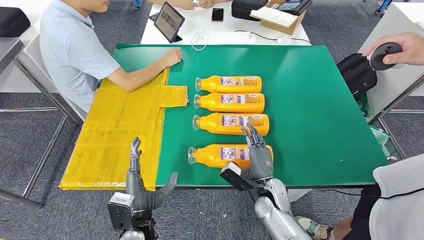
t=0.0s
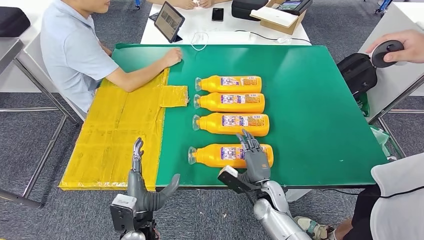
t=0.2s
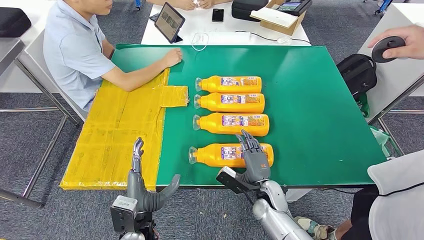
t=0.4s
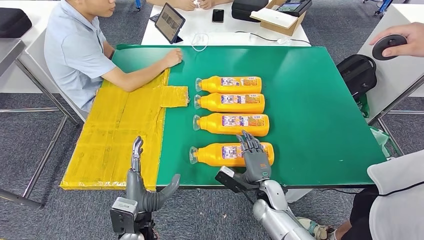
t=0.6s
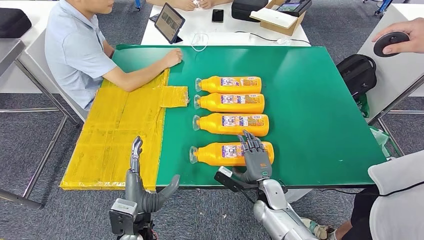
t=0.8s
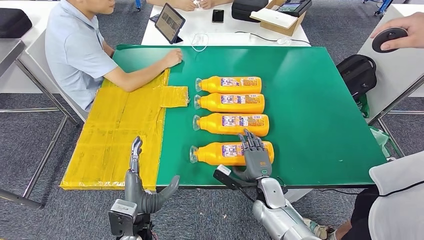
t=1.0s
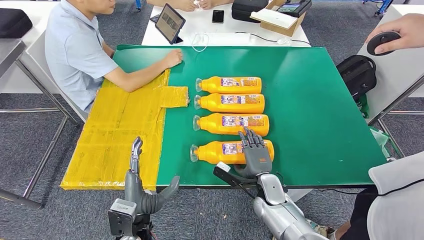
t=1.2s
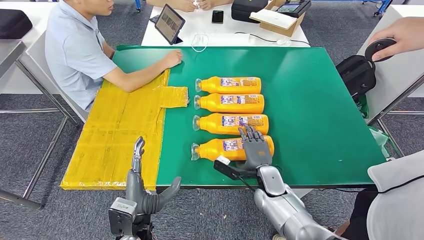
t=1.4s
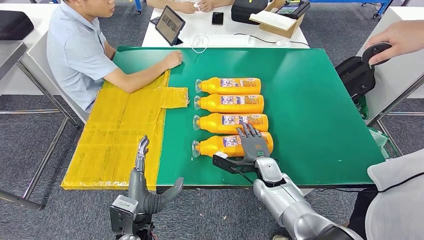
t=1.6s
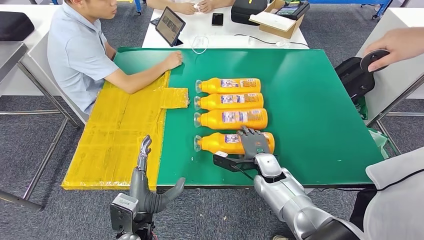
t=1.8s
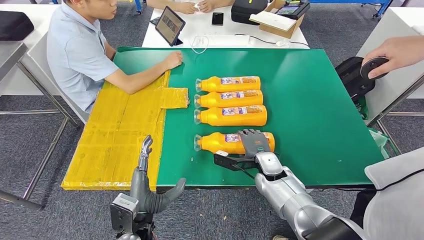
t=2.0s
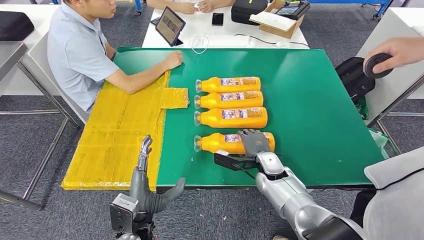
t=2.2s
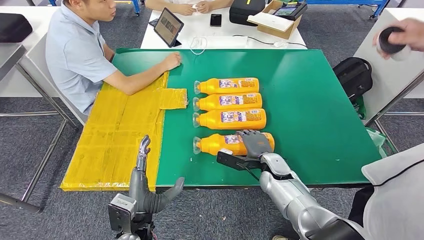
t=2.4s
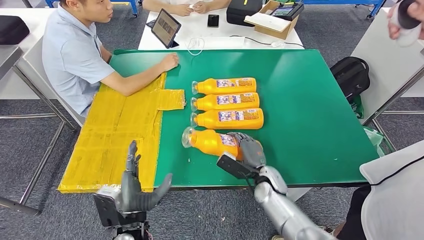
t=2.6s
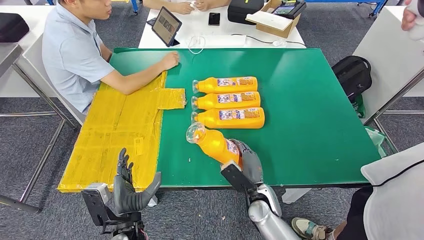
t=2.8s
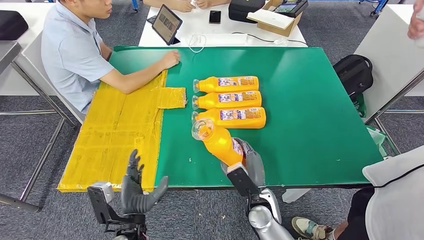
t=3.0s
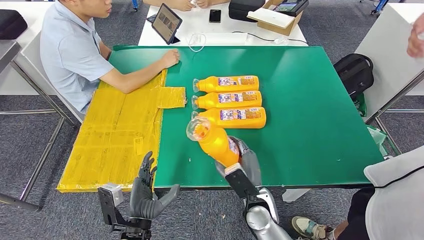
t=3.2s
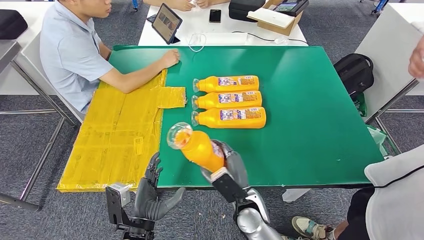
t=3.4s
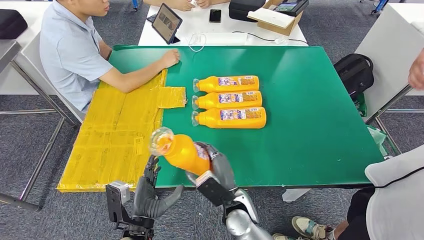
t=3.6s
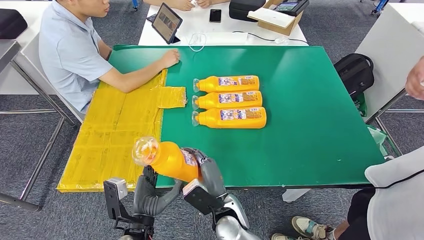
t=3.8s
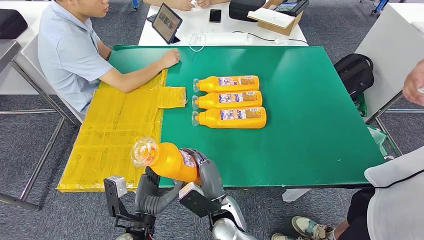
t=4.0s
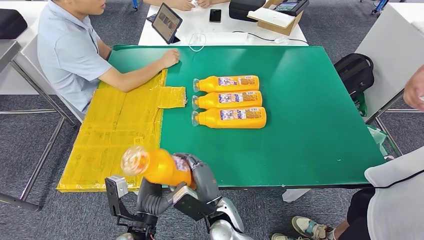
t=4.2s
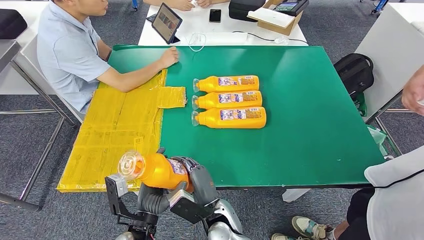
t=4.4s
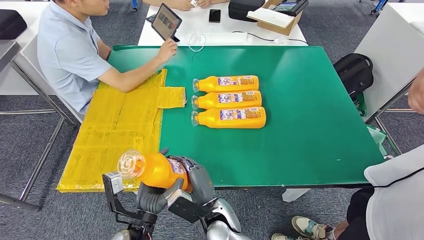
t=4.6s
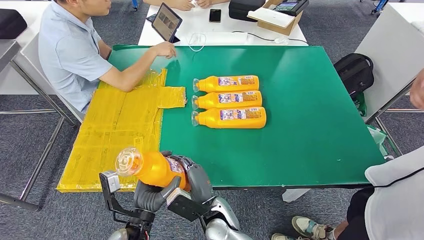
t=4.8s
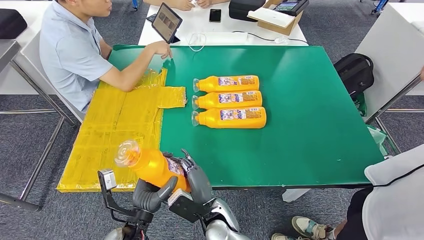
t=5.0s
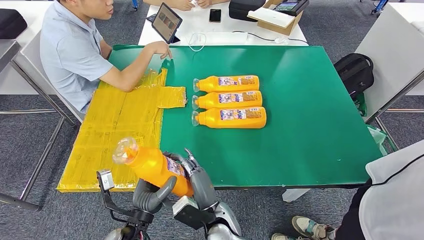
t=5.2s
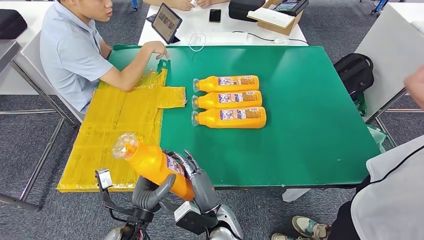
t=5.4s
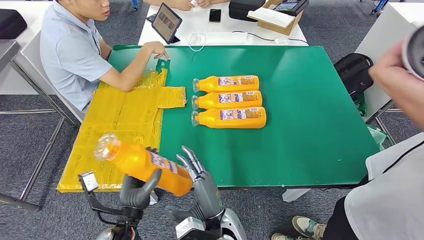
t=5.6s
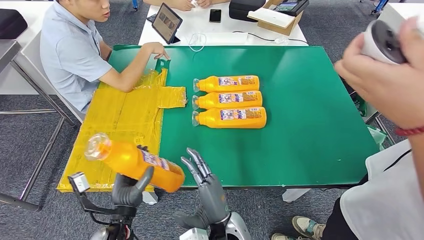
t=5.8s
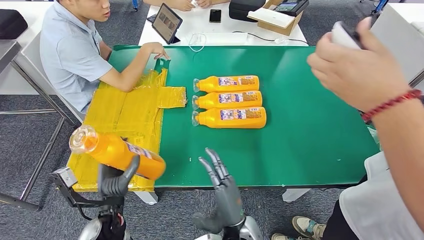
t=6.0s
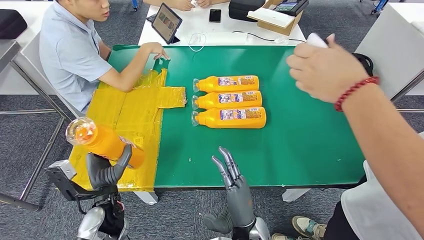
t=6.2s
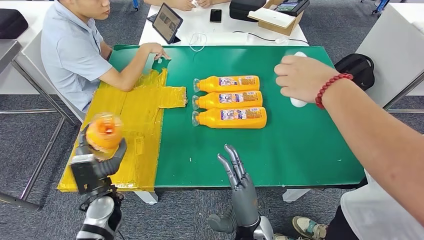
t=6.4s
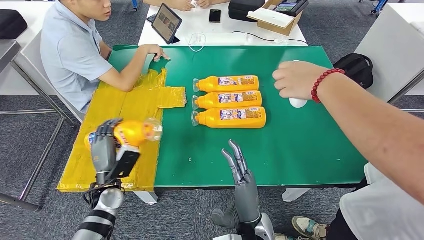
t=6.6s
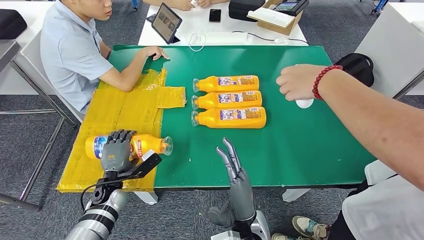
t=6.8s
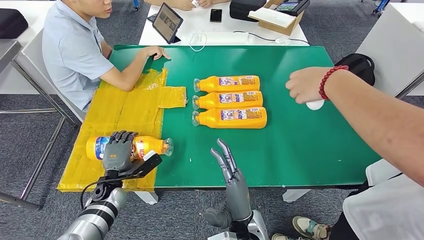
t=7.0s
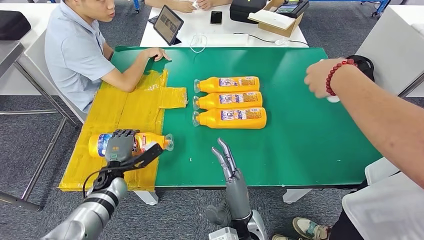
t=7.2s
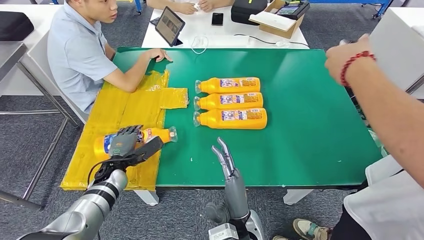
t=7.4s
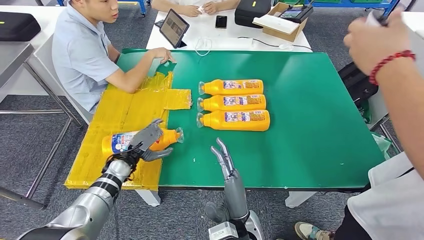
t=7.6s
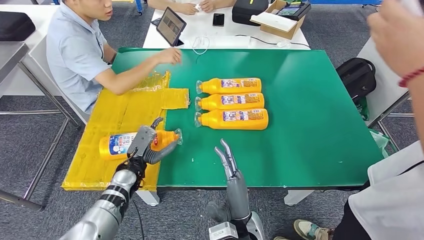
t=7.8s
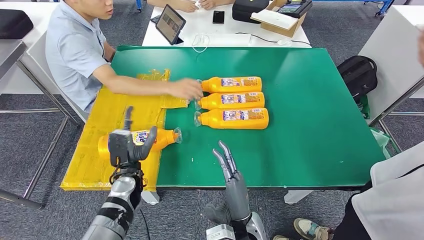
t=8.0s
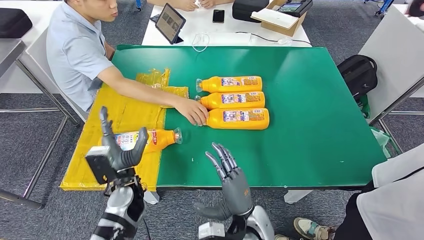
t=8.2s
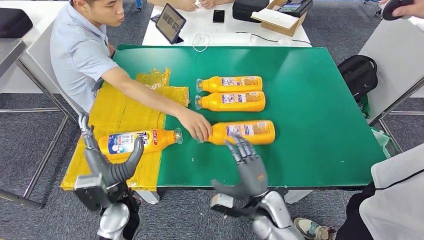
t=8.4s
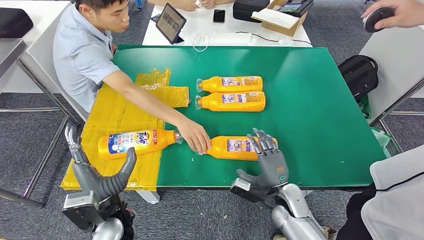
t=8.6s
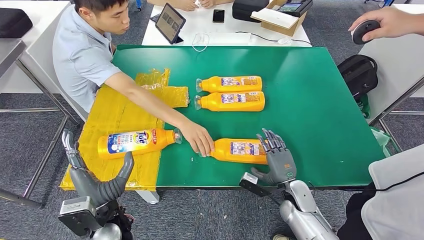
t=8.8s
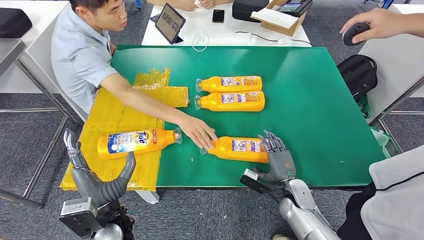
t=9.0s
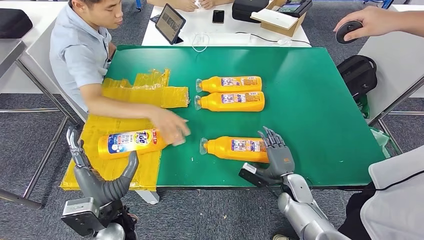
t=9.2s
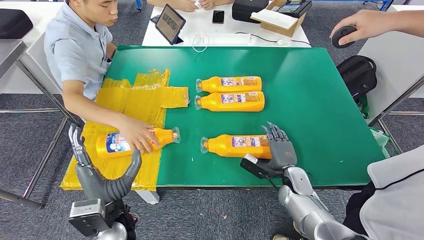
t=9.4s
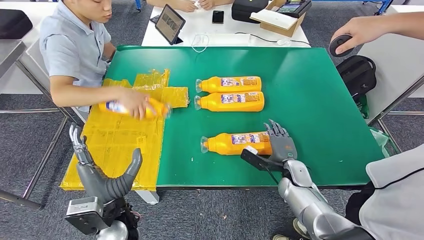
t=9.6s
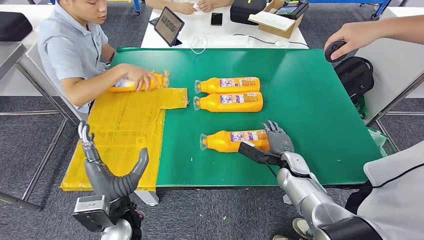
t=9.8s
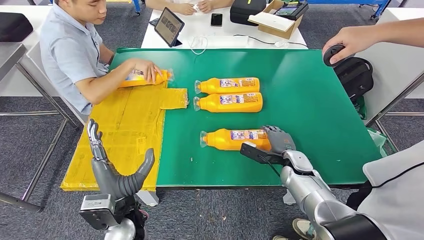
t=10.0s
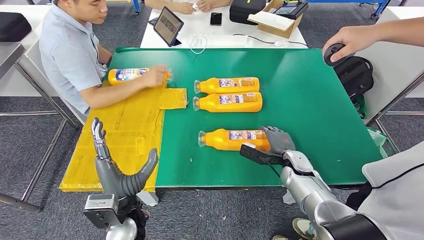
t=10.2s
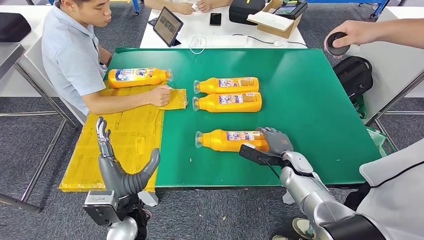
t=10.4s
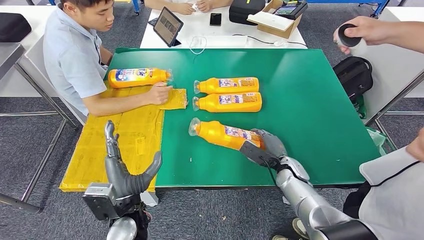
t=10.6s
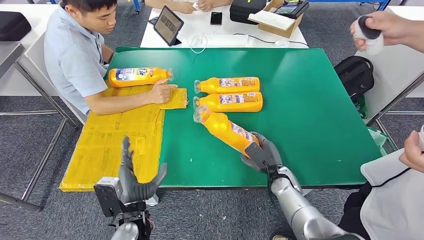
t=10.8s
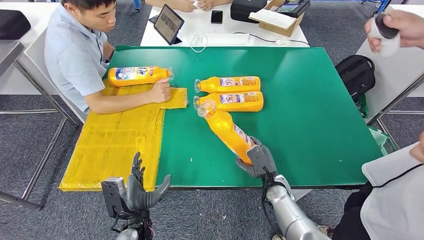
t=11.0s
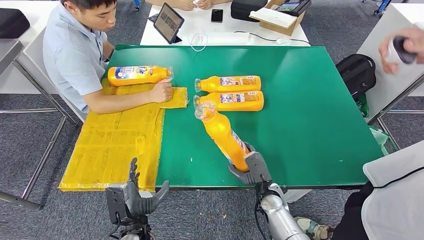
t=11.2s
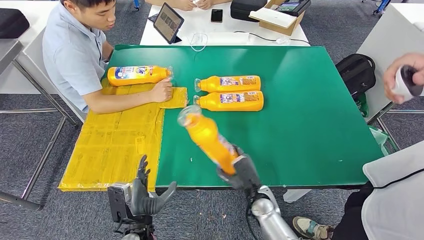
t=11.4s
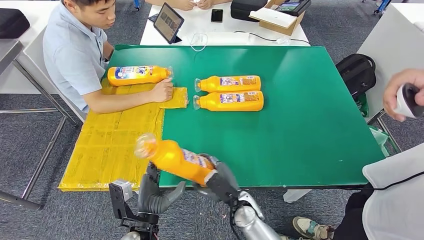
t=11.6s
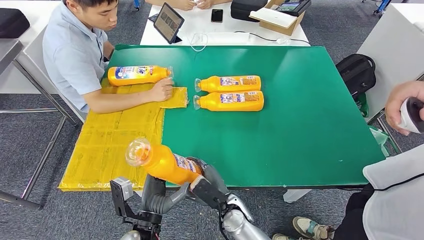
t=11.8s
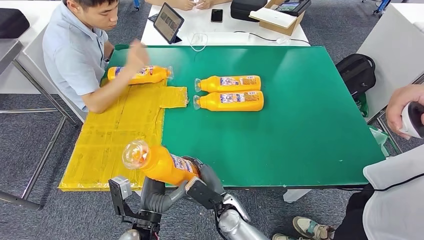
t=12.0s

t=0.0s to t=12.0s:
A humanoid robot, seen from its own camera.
Step, t=0.0s to t=4.0s: Take the bottle from the table.
Step, t=4.2s to t=8.4s: Flip the bottle to face forward.
t=3.0s to t=4.4s: The right hand is displaced to the left by some 10 cm.

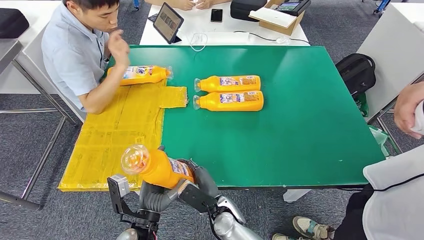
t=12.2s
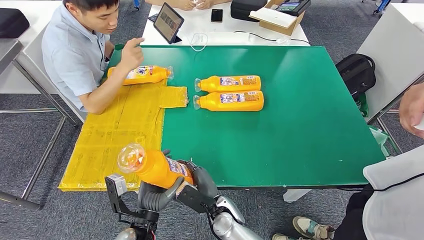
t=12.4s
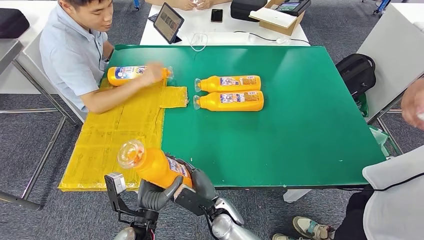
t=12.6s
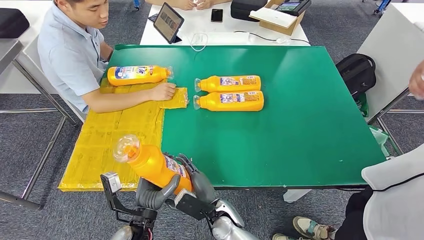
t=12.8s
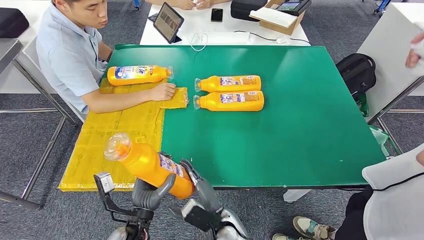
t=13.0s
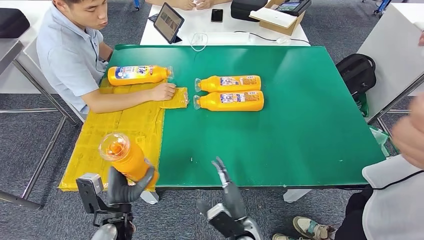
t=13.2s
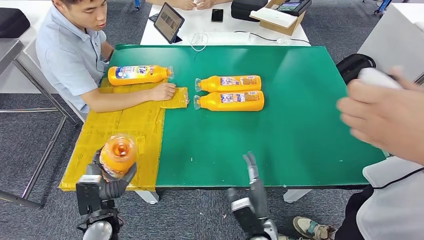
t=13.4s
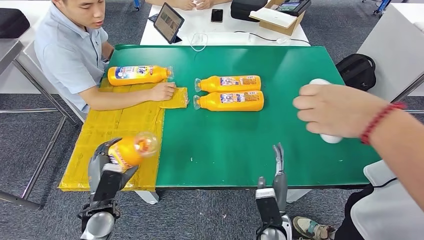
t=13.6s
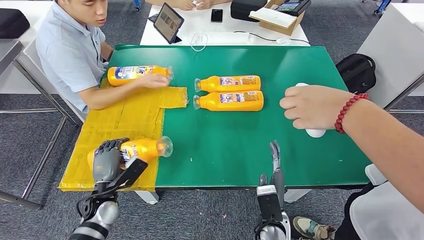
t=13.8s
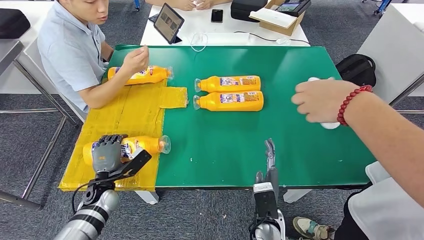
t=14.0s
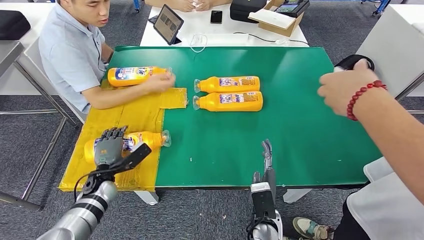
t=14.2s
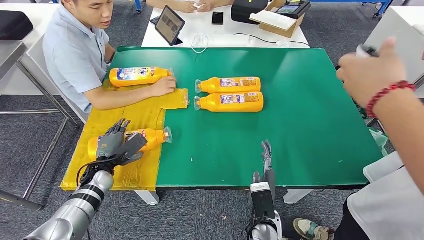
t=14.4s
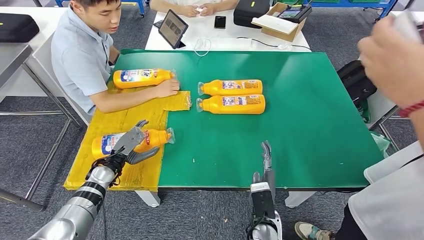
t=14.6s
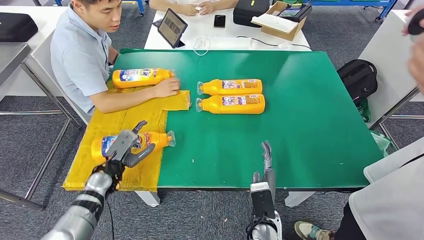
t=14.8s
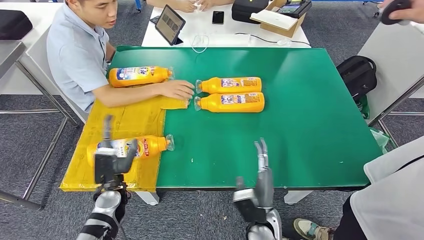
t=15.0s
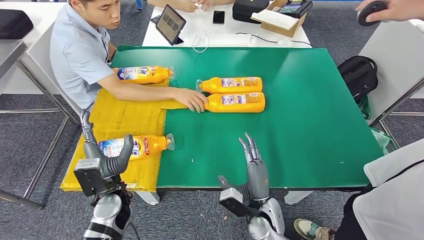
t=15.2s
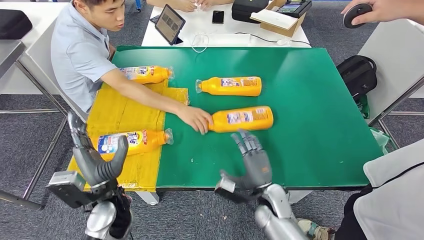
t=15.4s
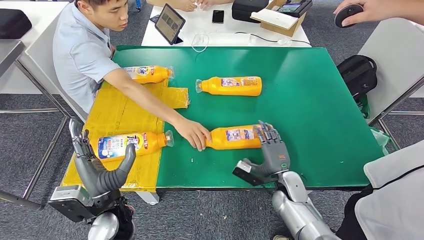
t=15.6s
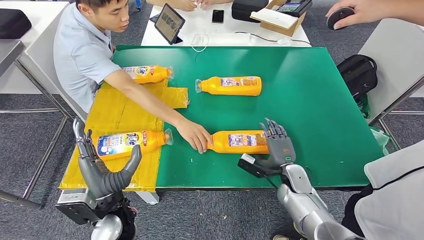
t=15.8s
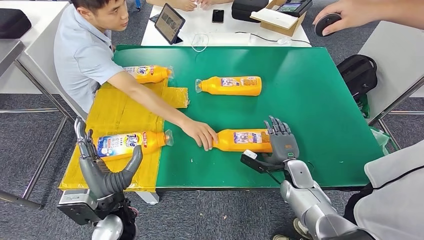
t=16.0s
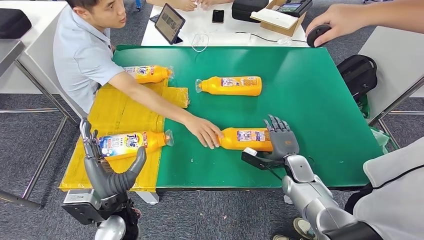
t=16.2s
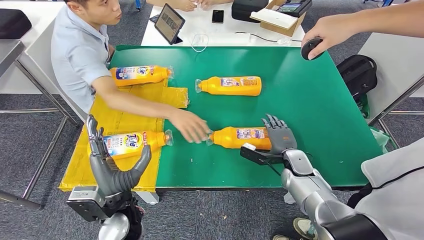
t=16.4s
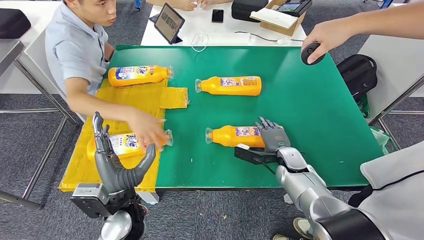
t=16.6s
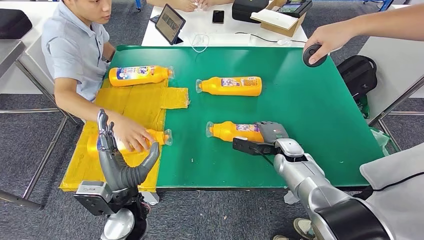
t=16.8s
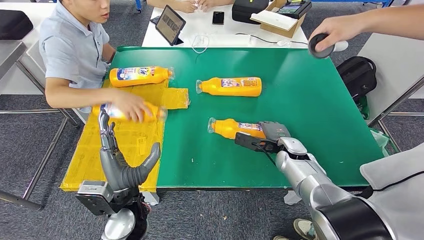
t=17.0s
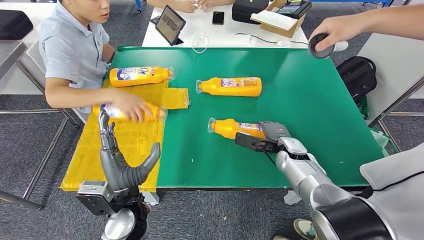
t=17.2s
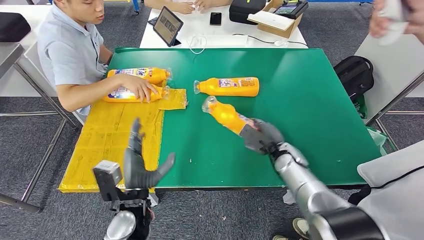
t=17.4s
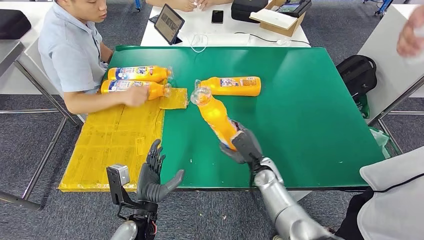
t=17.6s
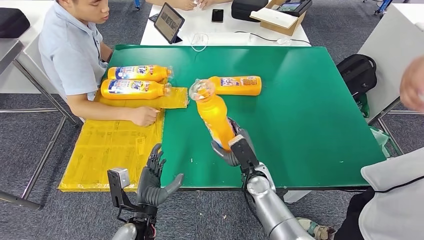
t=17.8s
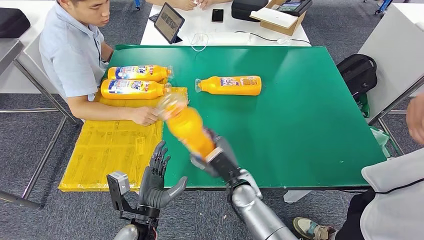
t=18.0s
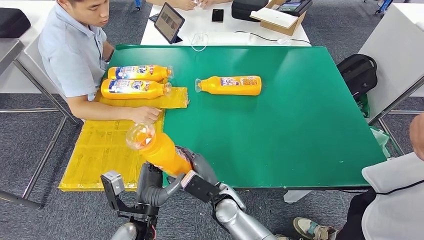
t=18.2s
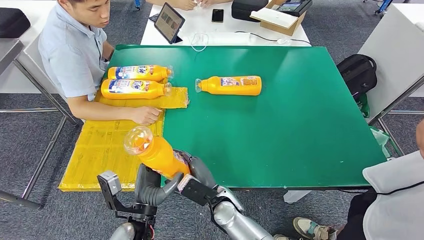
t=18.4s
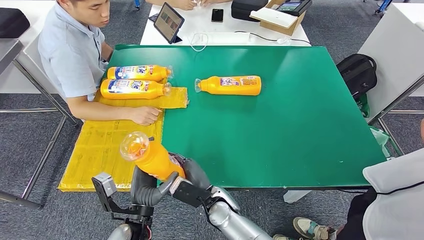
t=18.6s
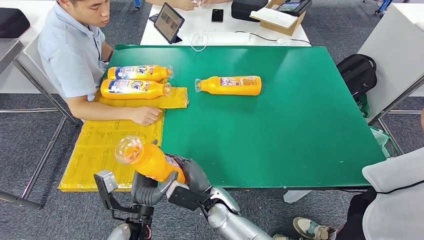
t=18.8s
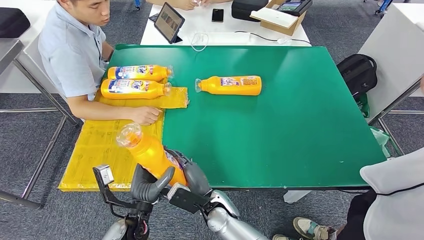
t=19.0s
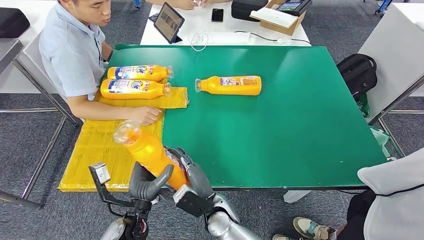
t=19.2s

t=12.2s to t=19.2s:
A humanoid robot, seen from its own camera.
Step, t=12.6s to t=16.0s: Flip the bottle to face forward.
Step, t=17.4s to t=18.6s: Pick up the bottle from the table.
t=17.8s to t=19.2s: The right hand goes roughly 15 cm to the left and backward.
